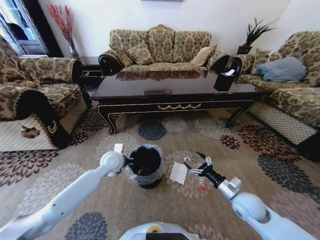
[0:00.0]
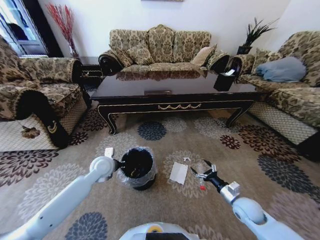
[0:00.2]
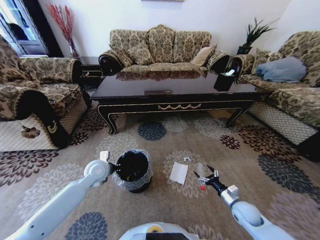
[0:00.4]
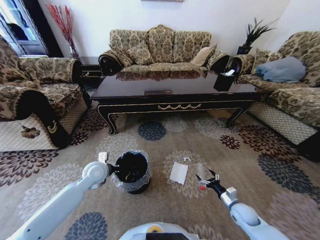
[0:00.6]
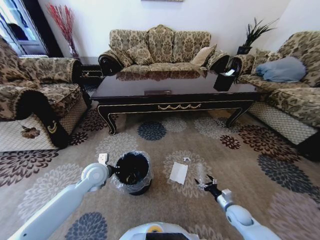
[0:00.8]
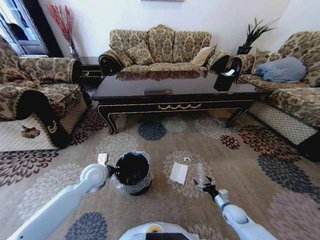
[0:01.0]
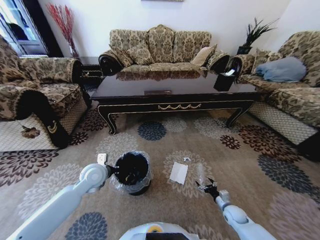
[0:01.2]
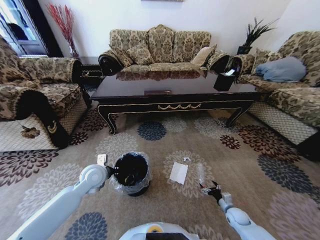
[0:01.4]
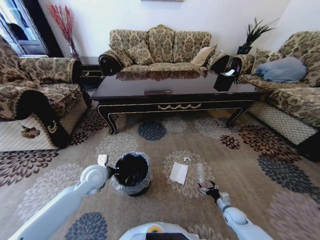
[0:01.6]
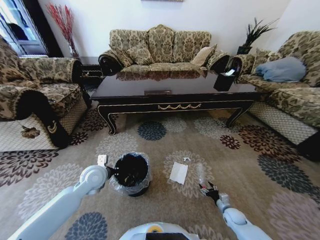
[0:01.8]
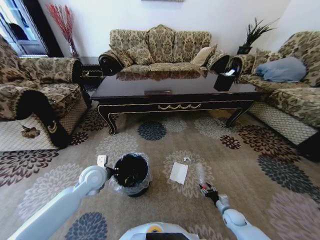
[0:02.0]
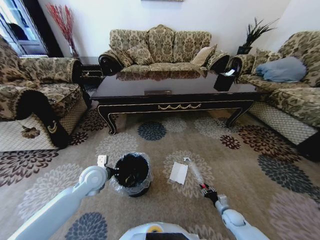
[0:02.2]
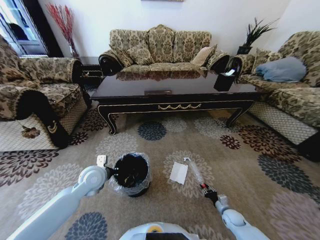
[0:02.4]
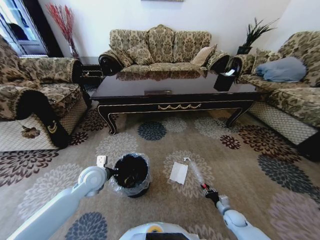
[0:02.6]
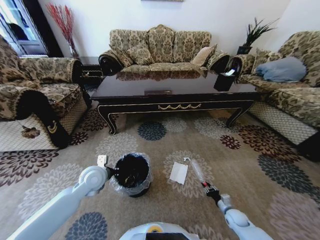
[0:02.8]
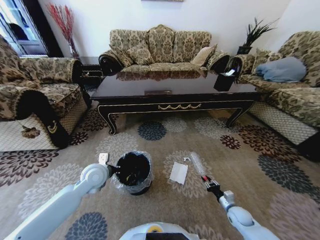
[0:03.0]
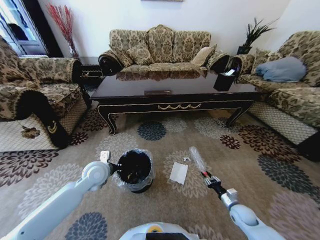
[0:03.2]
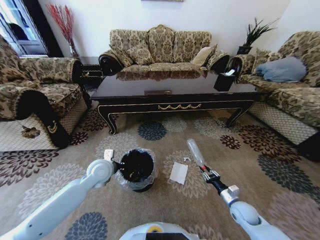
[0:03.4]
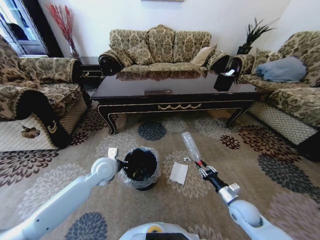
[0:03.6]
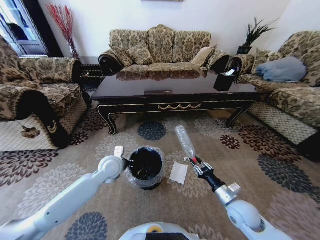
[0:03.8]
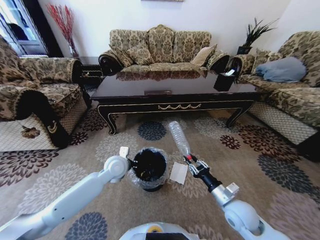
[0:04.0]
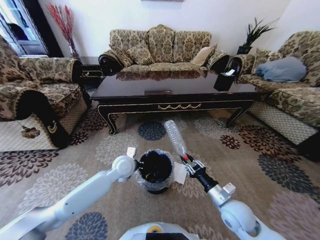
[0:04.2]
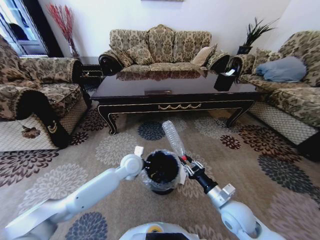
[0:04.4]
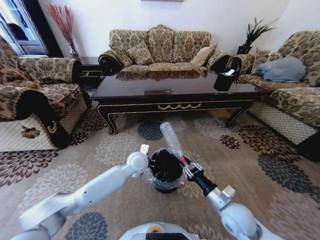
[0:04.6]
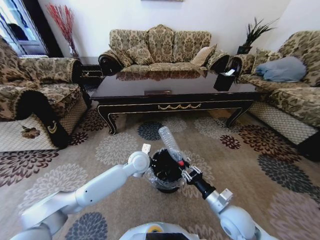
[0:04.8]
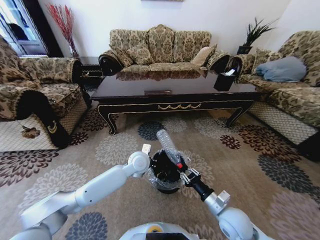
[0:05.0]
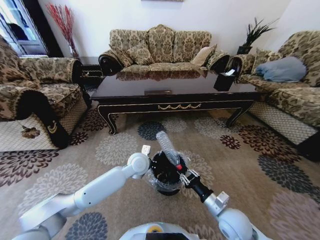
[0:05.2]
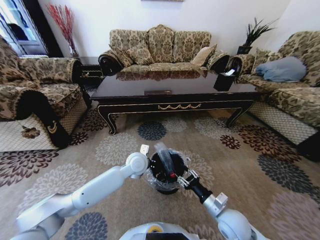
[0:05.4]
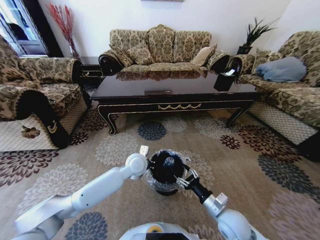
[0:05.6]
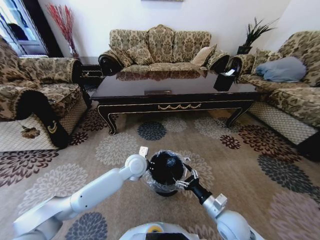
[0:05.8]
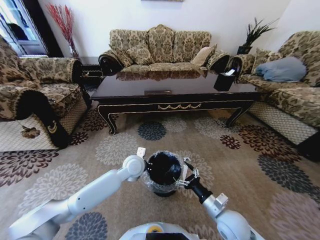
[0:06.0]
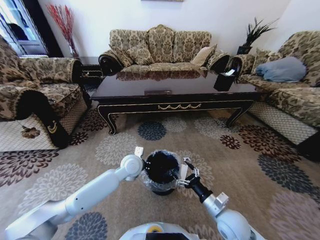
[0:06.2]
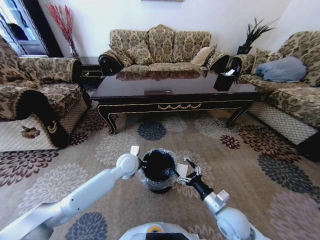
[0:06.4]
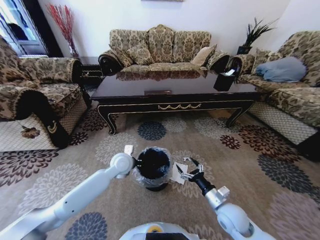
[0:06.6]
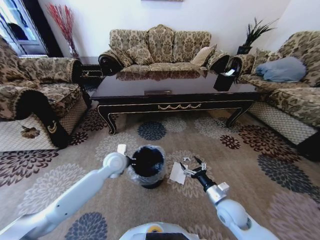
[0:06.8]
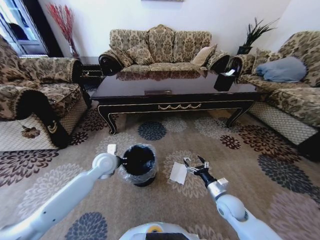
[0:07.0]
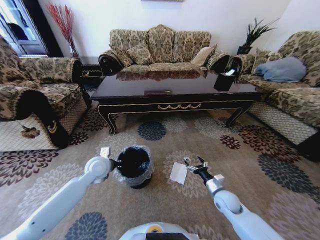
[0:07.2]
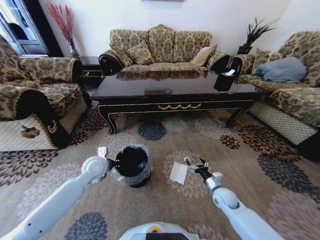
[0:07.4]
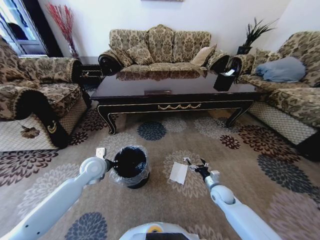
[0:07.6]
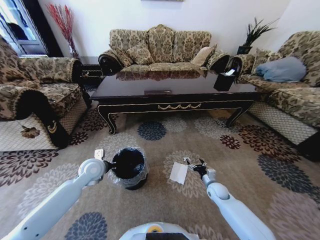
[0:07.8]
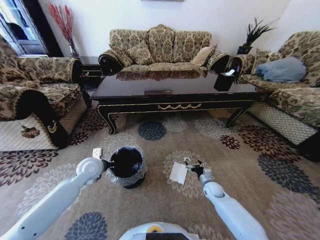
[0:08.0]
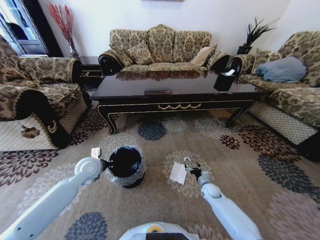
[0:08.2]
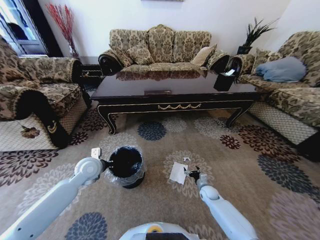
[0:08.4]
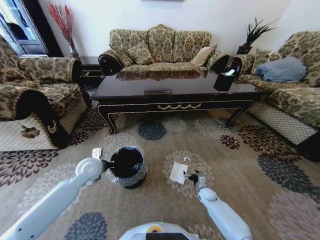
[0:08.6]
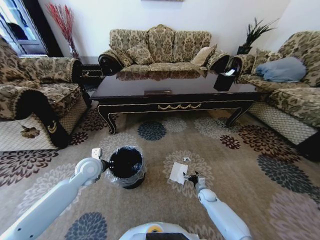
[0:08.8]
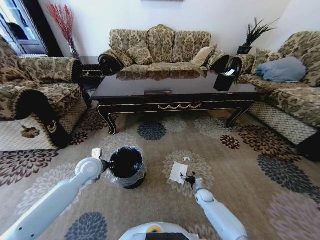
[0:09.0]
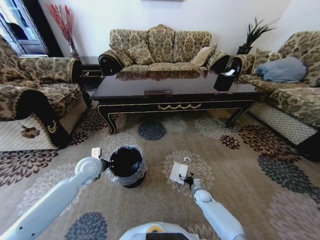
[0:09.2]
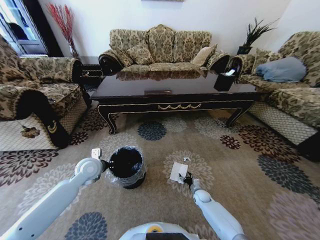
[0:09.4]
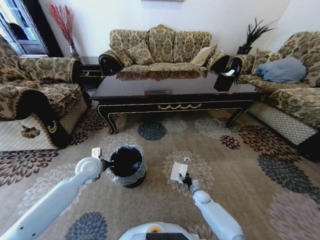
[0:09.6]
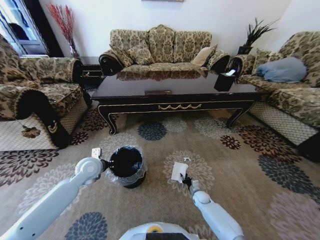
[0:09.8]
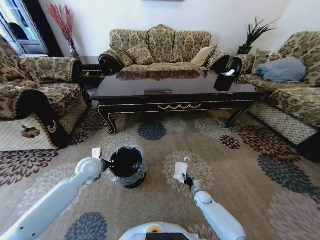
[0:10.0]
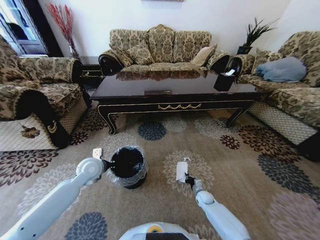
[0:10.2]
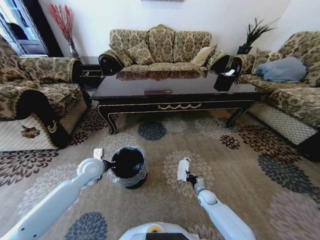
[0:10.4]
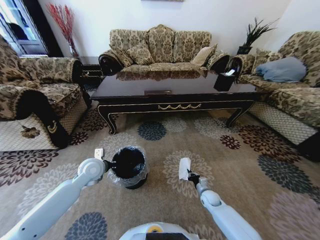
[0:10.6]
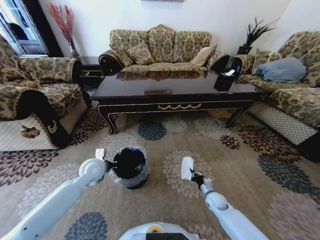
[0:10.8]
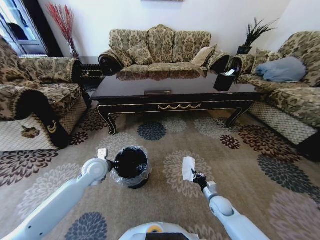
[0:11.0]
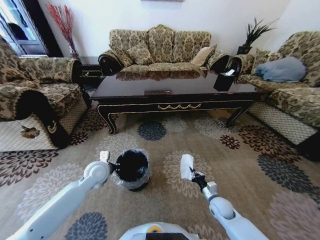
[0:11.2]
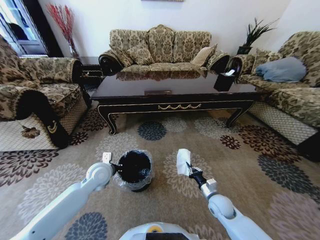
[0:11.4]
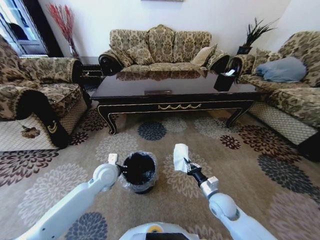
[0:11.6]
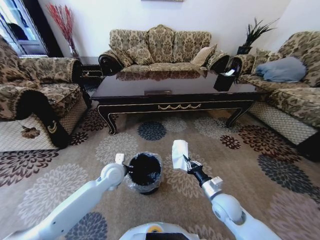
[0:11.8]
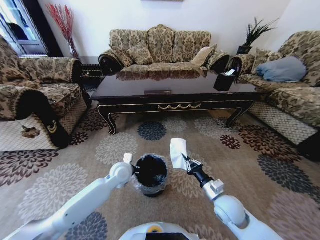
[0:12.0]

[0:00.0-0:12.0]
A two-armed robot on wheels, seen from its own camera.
Task of the whole recording: Move to the front of the table and pick up the trash from the floor, then place it into the trash bin.
0.0 to 1.6 s: The left gripper heads to the left and backward, covering some 10 cm, while the right gripper is displaced downward by about 25 cm.
1.6 to 3.0 s: The right gripper closes.
3.0 to 4.4 s: The left gripper is displaced to the right by roughly 15 cm; the right gripper moves upward and to the left, approximately 25 cm.
4.4 to 6.0 s: The right gripper opens up.
6.0 to 7.6 s: The right gripper shifts about 20 cm forward, downward and to the right. Meanwhile the left gripper goes some 15 cm to the left.
7.6 to 9.0 s: The right gripper is displaced downward by roughly 15 cm.
9.0 to 10.4 s: The right gripper closes its fingers.
10.4 to 12.0 s: The left gripper travels to the right by approximately 10 cm. The right gripper goes roughly 25 cm upward and backward.

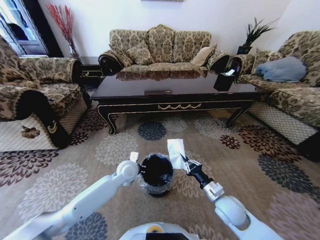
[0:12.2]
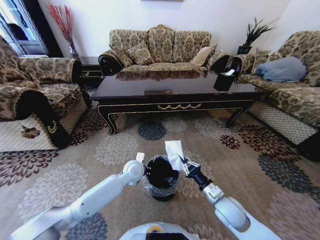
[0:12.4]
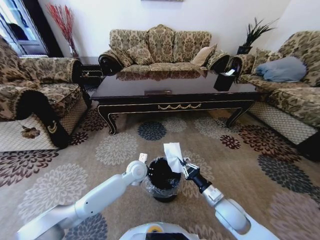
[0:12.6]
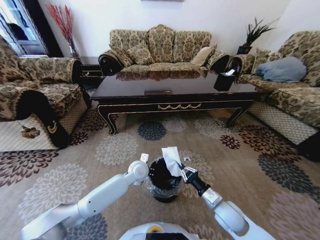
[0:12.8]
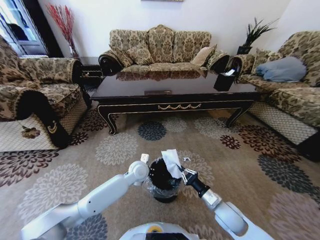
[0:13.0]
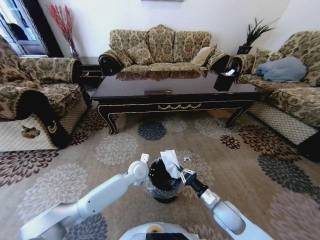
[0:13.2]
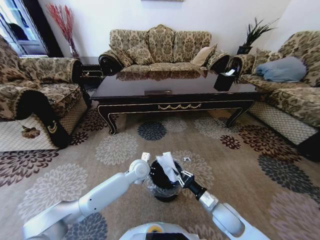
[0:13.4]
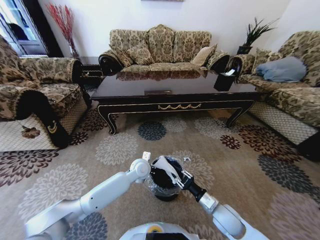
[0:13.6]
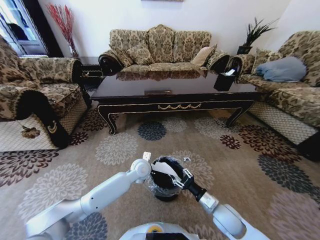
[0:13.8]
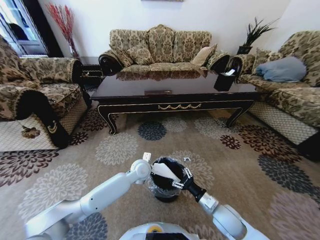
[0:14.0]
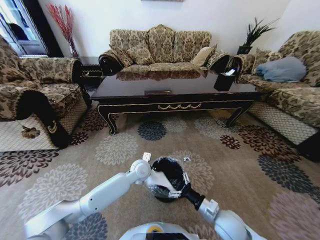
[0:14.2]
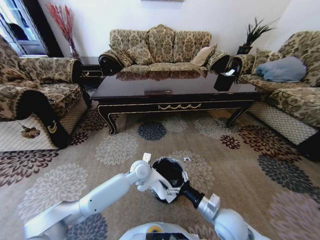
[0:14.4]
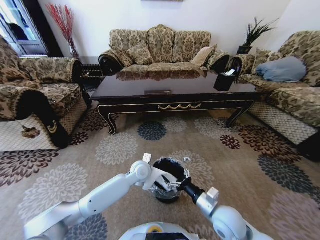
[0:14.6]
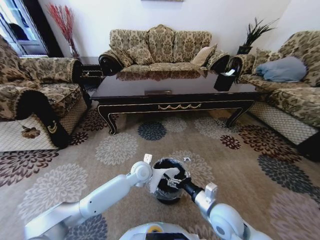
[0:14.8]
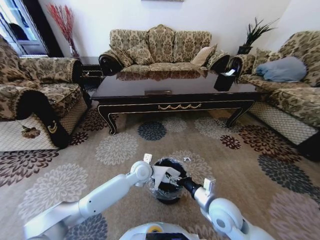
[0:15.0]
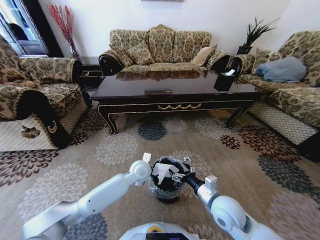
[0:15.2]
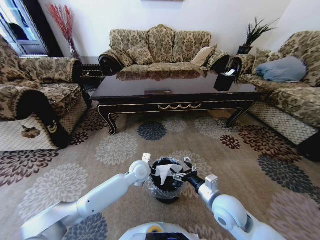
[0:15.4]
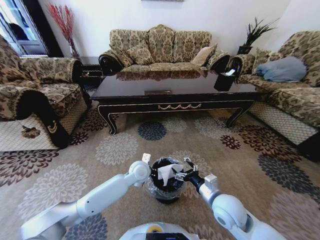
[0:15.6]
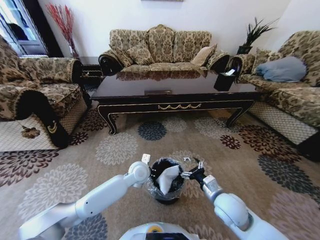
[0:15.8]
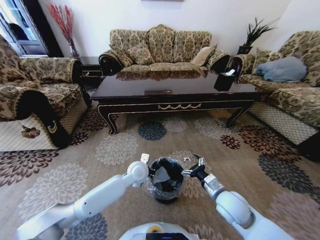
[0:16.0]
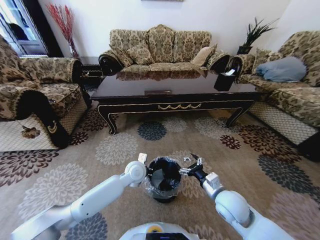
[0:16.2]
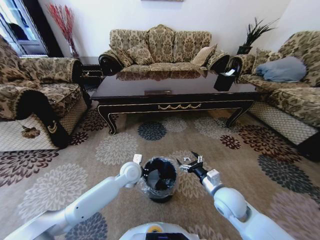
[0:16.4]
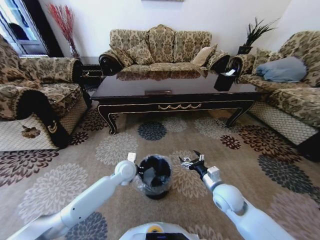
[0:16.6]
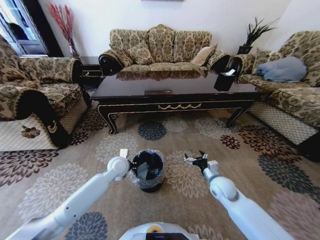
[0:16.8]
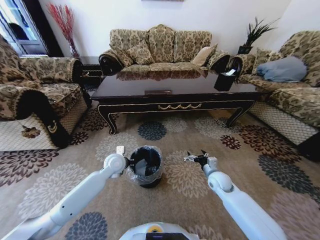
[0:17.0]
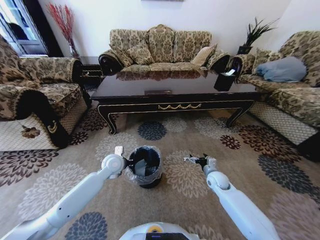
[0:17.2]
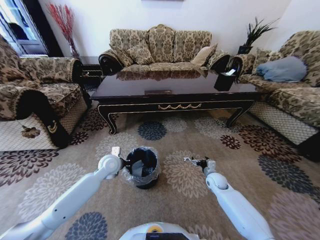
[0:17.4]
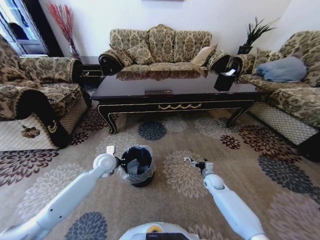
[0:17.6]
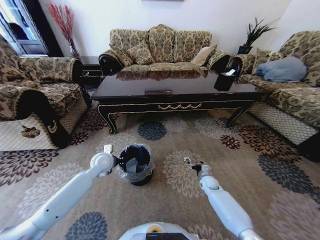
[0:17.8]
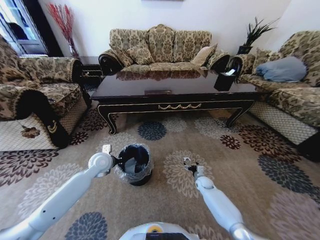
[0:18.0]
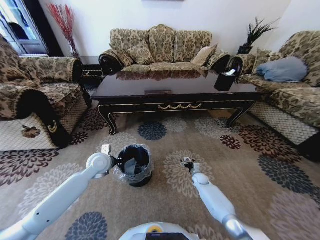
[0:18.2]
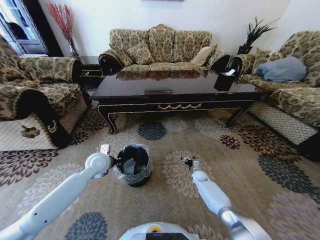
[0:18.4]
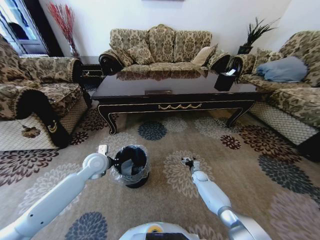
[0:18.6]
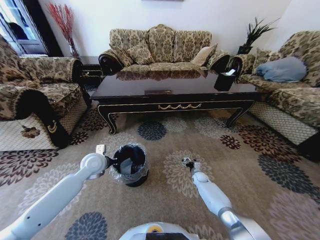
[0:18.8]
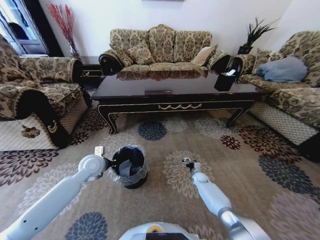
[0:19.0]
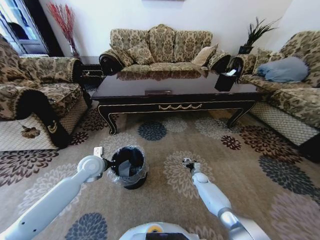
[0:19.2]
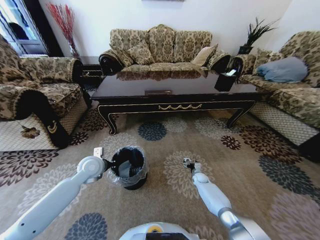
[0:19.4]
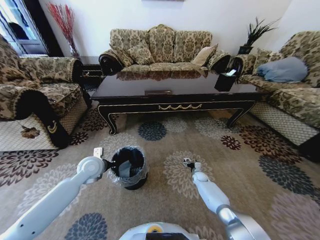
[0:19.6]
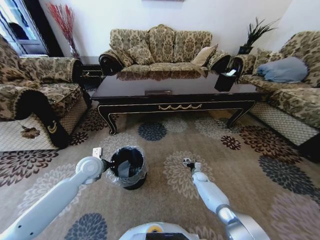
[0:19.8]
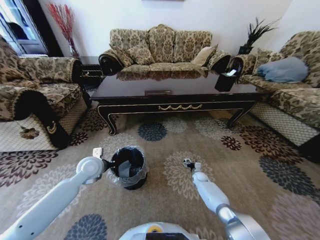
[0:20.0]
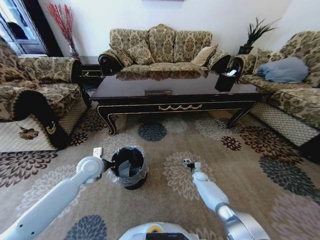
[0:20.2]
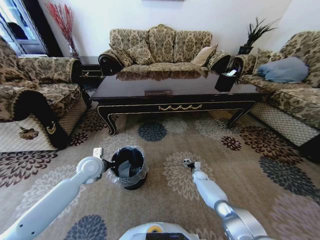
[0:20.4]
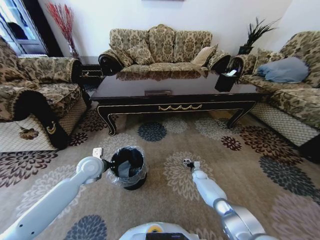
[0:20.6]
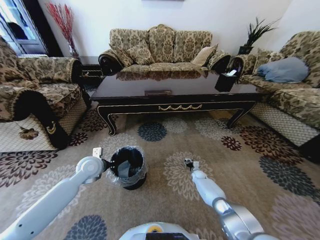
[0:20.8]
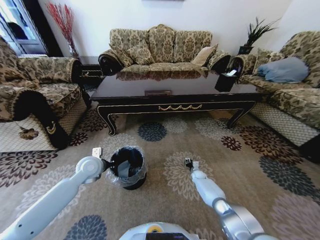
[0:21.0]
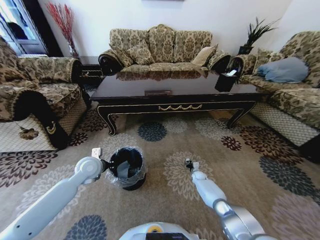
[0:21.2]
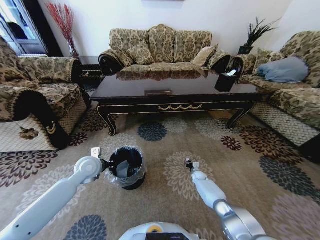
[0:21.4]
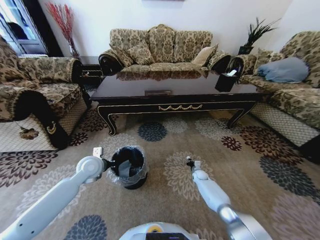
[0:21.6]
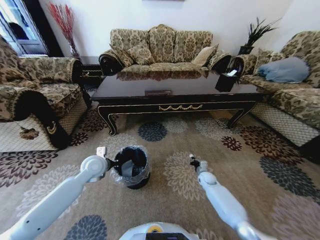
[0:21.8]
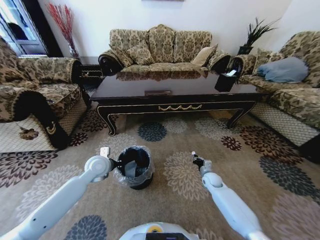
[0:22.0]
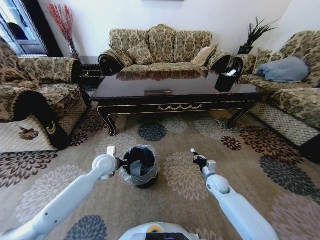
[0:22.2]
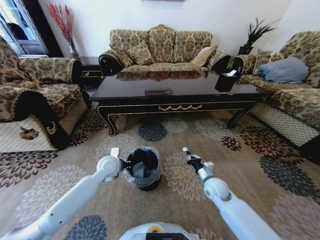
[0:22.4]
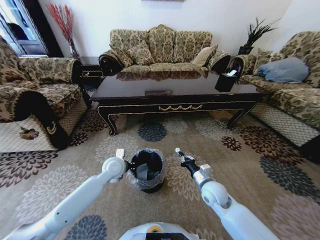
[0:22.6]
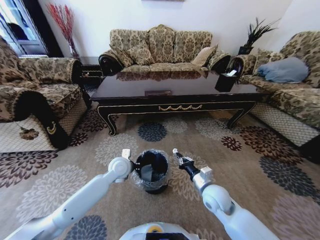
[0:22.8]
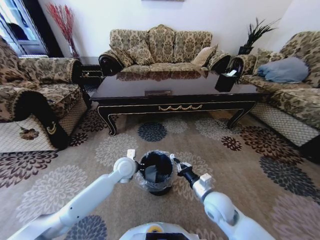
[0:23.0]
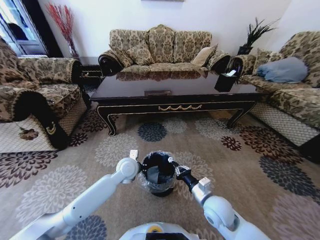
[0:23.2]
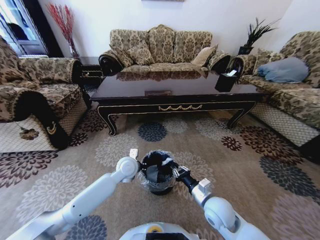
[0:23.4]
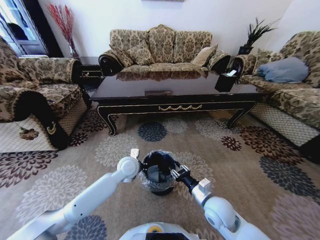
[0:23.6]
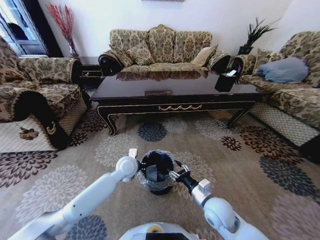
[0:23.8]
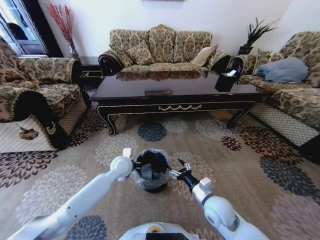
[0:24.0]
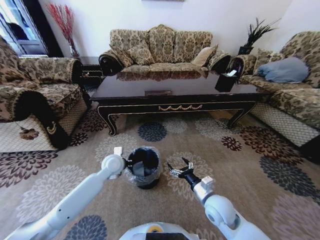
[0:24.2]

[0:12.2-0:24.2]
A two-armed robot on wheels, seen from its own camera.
Task of the whole recording: Move to the front of the table and pick up the trash from the floor, then place it into the trash bin.
12.2 to 13.8 s: The right gripper opens, while the left gripper goes some 5 cm to the right.
13.8 to 15.2 s: The right gripper goes approximately 10 cm upward, and opens its fingers.
15.2 to 16.6 s: The right gripper travels forward by roughly 5 cm. Meanwhile the left gripper is displaced to the left by approximately 5 cm.
16.6 to 18.2 s: The left gripper is displaced to the left by approximately 10 cm. The right gripper travels downward and forward by roughly 30 cm.
18.2 to 19.8 s: The grippers stay close to where they were, moving slightly.
19.8 to 21.2 s: The right gripper closes.
21.2 to 22.6 s: The right gripper goes approximately 30 cm upward and backward. Meanwhile the left gripper shifts roughly 10 cm to the right.
22.6 to 24.2 s: The right gripper heads backward, covering some 5 cm, and opens.
